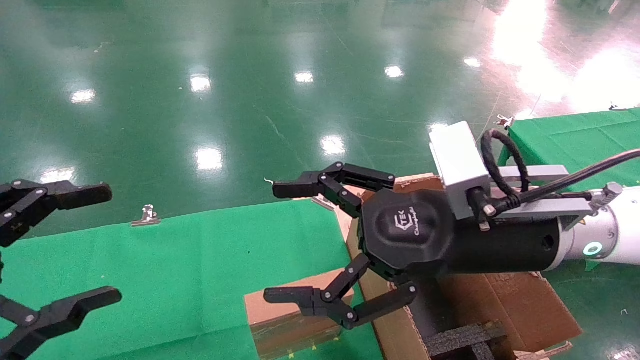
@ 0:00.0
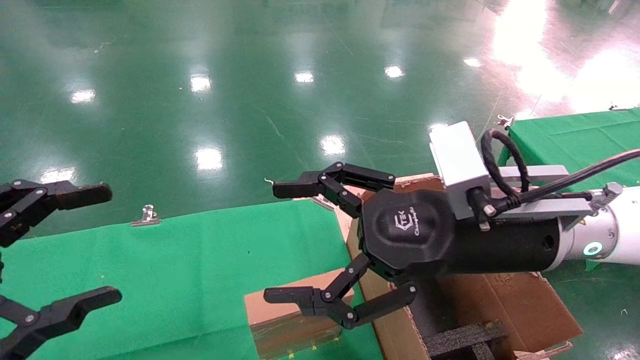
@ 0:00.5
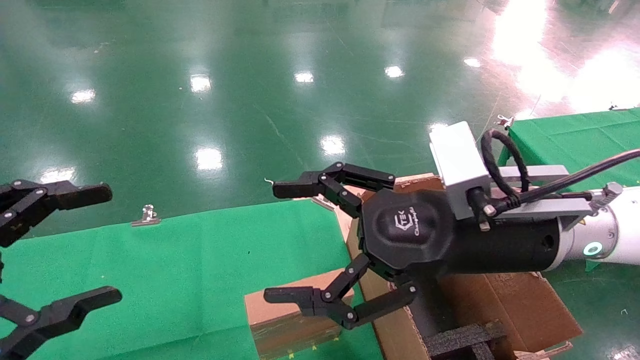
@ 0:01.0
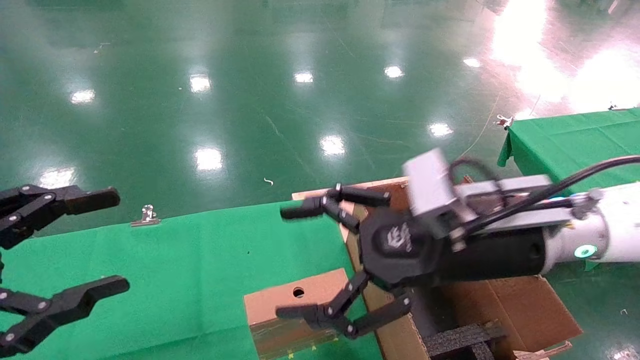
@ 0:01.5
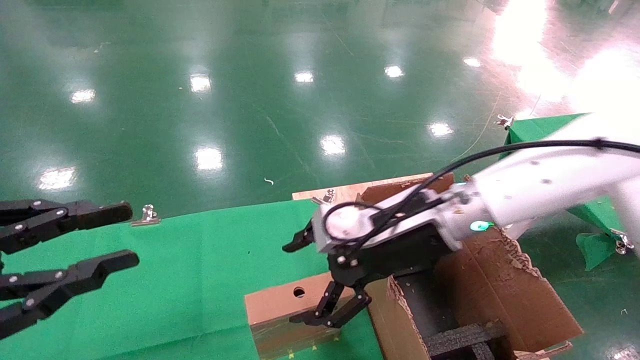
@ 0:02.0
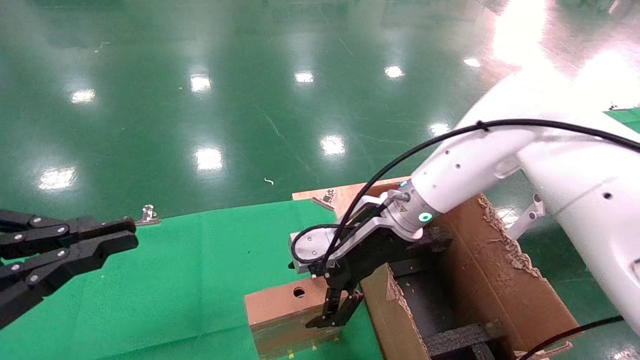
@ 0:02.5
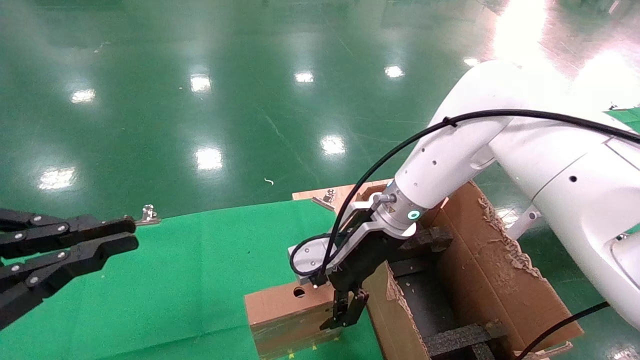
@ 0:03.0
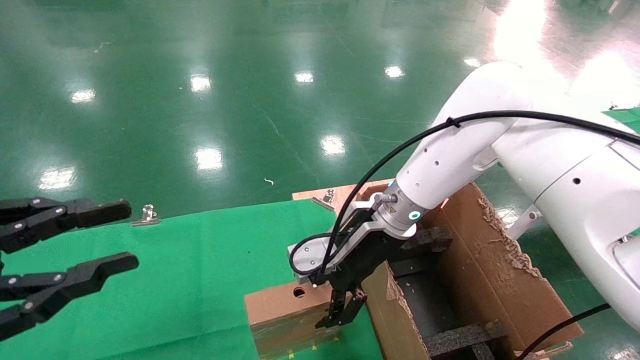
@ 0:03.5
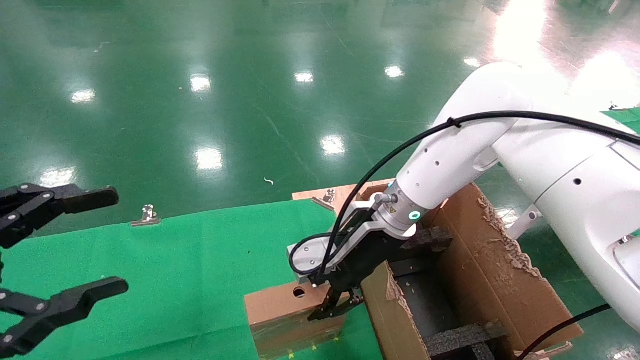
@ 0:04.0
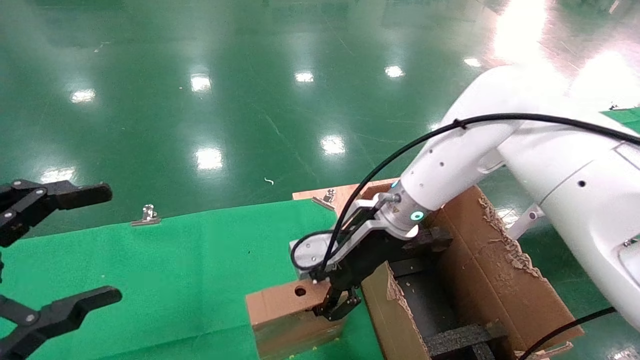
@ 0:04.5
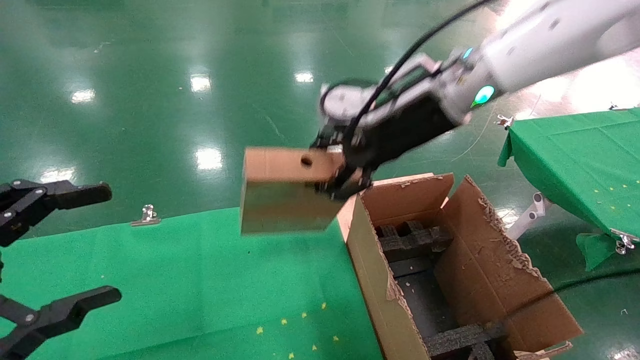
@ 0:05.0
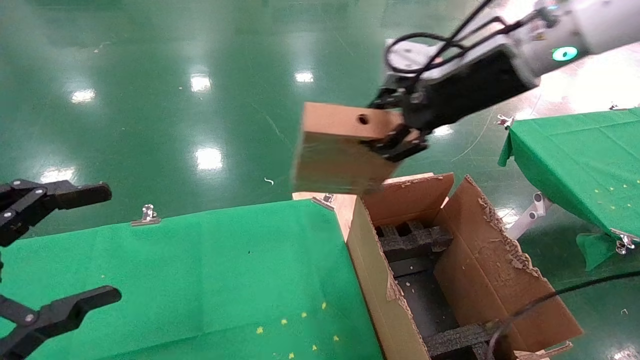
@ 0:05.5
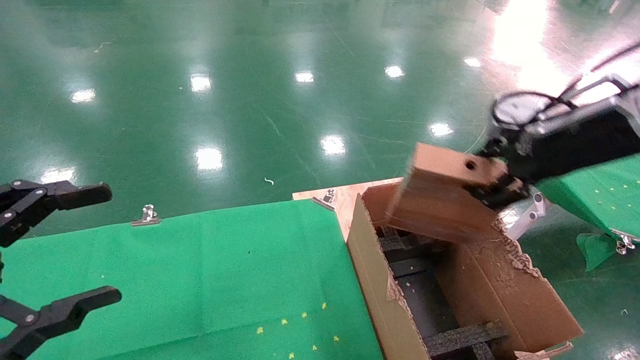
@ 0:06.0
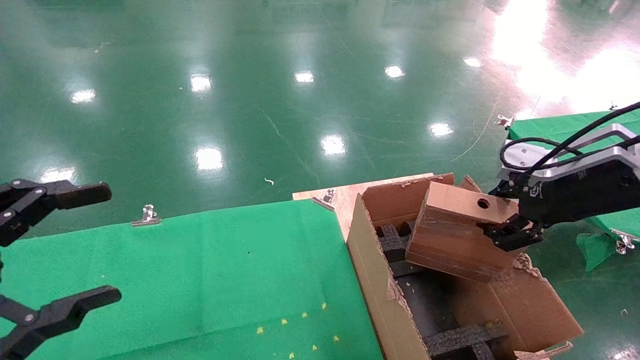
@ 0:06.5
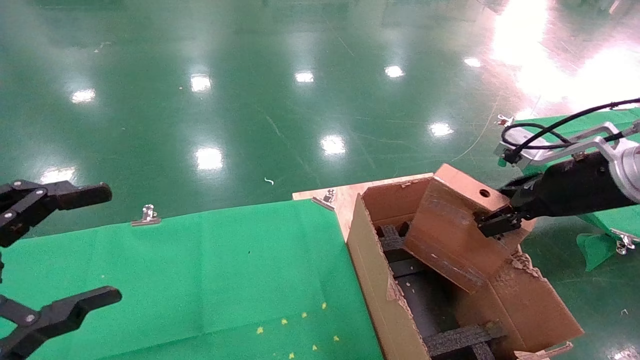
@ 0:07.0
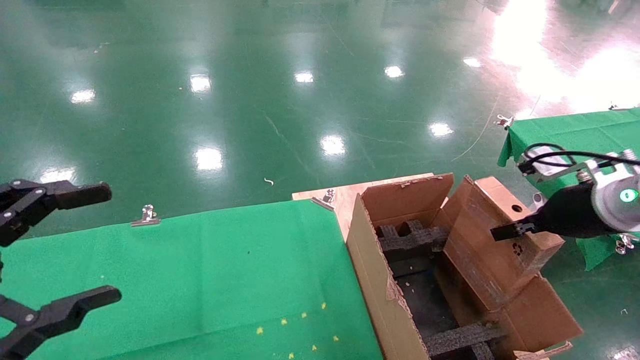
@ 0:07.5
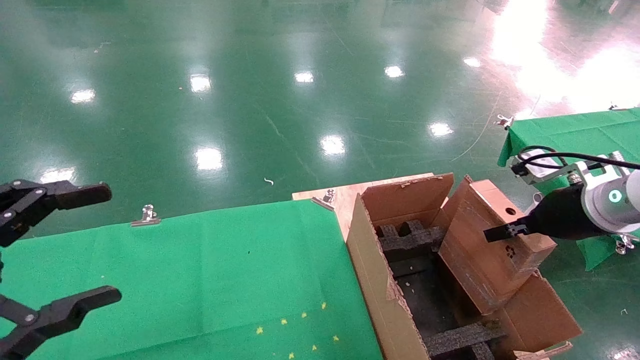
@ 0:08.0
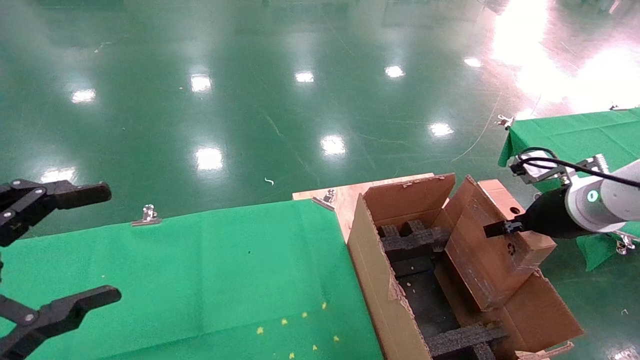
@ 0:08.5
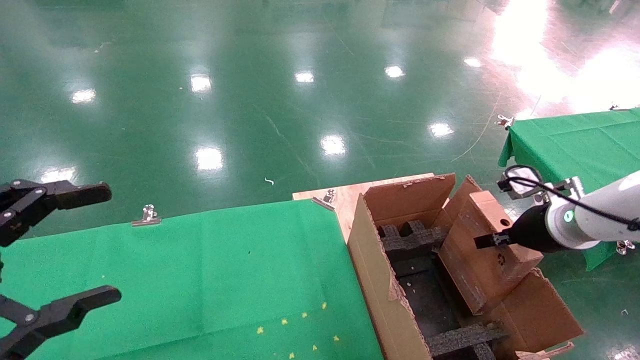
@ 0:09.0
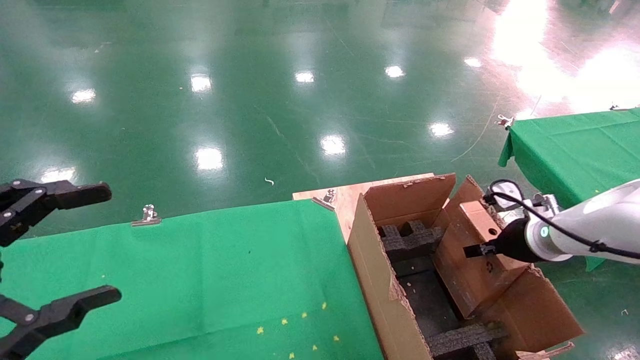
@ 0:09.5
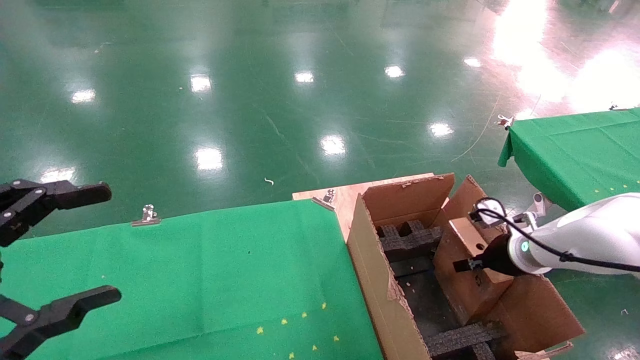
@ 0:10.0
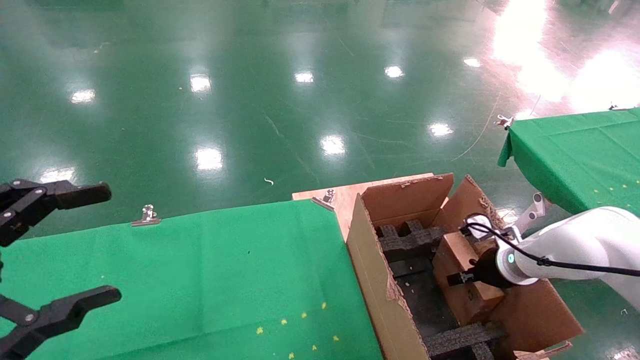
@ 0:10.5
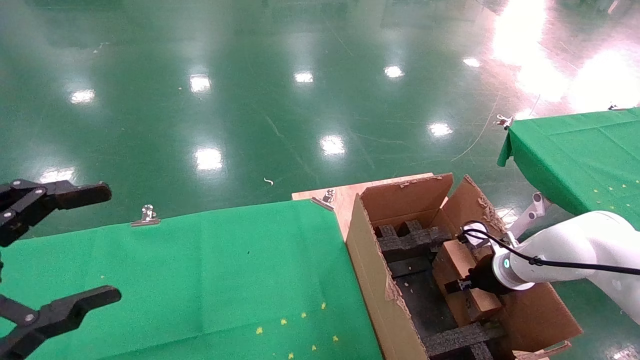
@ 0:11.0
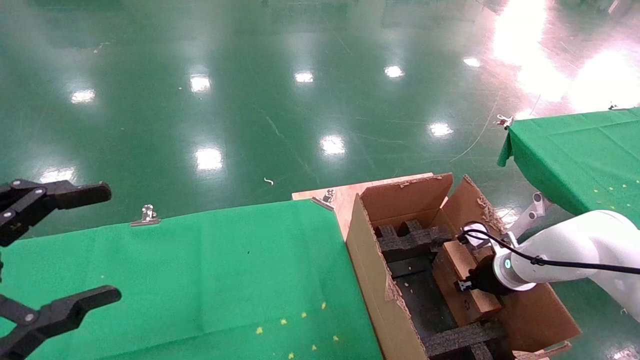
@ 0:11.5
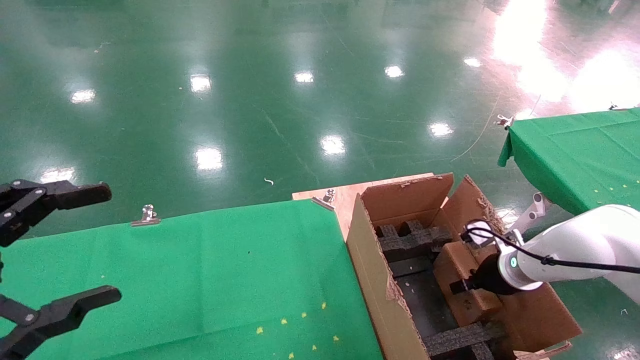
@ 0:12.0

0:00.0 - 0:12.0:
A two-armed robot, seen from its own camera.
Task of the whole recording: using a robotic arm to pick up a cardboard box and palace it the carton.
Step, 0:02.0 - 0:04.0: Pick up the mouse and the power cord paper box.
0:00.0 - 0:02.0: The left gripper closes its fingers, while the right gripper heads forward, covering roughly 10 cm.
0:02.0 - 0:04.0: The right gripper moves forward, some 5 cm, and closes up; the left gripper closes and opens again.
0:04.0 - 0:06.0: The right gripper heads to the right, upward and backward, covering some 30 cm, and closes up.
0:06.0 - 0:08.0: The right gripper travels downward by approximately 10 cm.
0:08.0 - 0:10.0: The right gripper goes approximately 15 cm downward and forward.
0:10.0 - 0:12.0: The right gripper opens up.

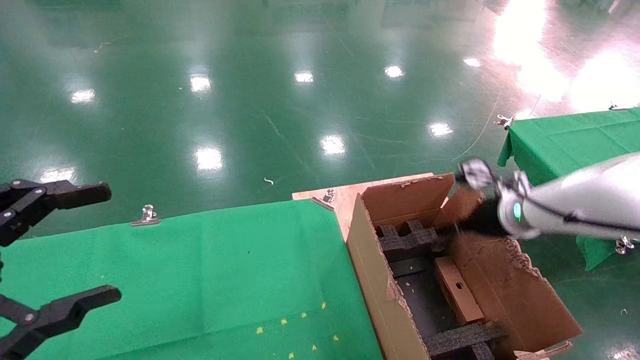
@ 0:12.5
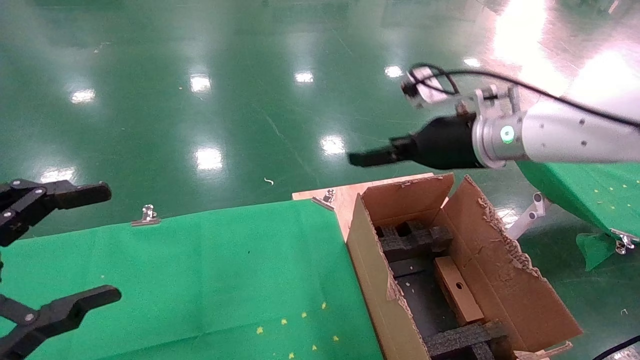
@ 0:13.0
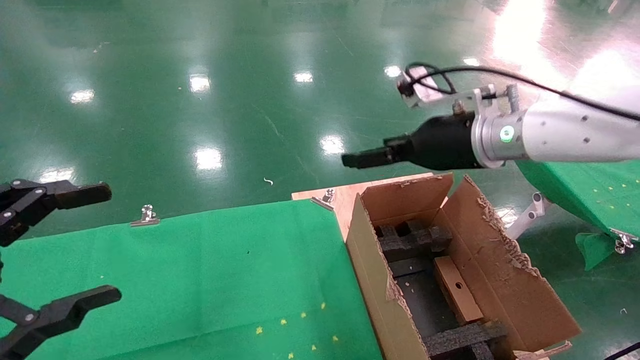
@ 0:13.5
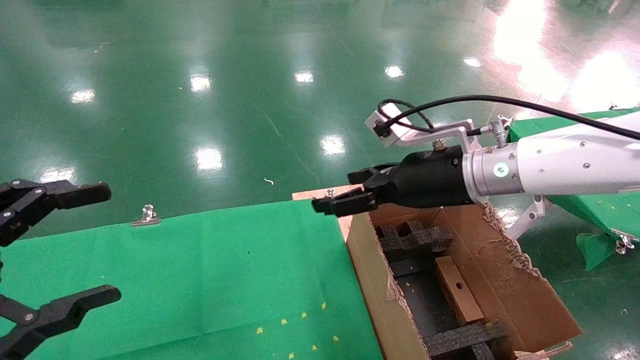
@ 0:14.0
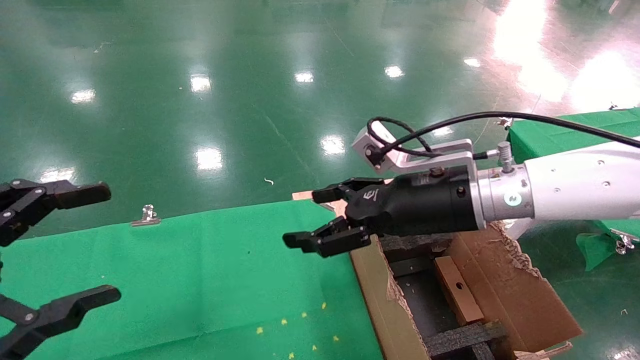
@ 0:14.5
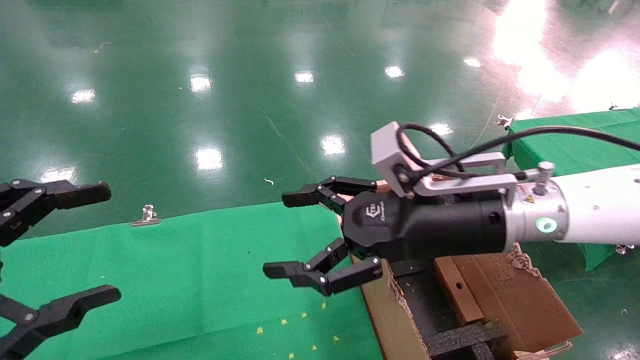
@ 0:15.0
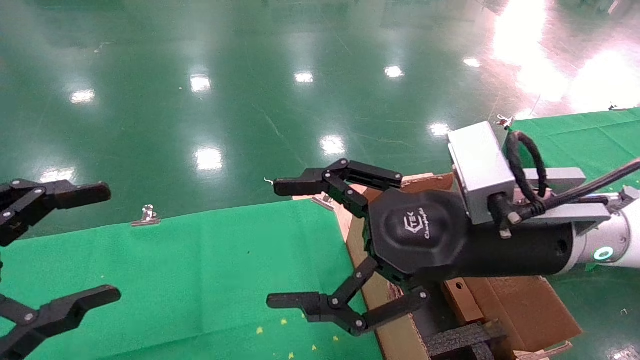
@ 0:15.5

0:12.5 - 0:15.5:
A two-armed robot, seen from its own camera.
Task of the whole recording: using a robotic arm to pick up a cardboard box and palace it the carton.
0:12.5 - 0:14.0: The right gripper goes roughly 15 cm to the left, upward and backward.
0:14.0 - 0:15.5: The right gripper shifts roughly 10 cm backward.

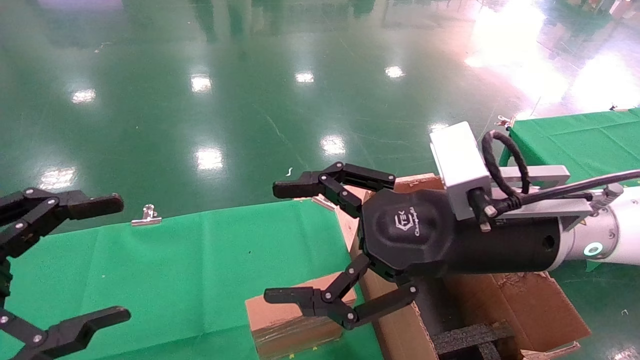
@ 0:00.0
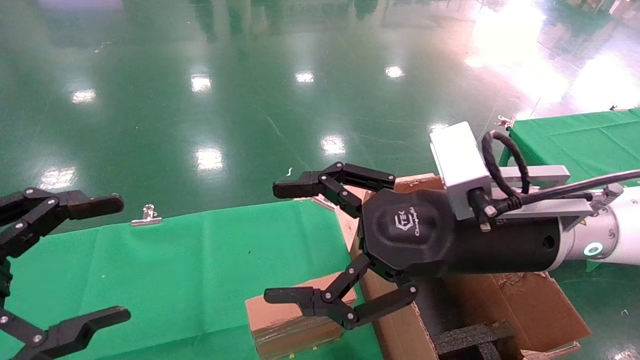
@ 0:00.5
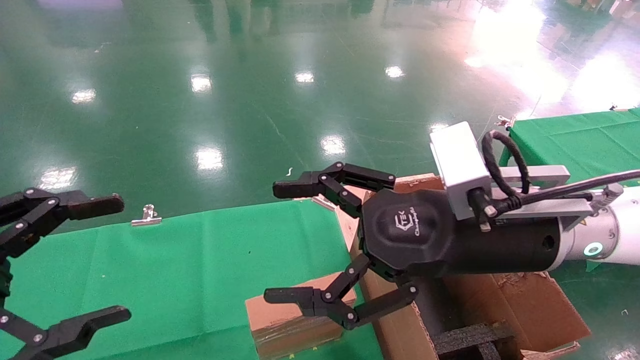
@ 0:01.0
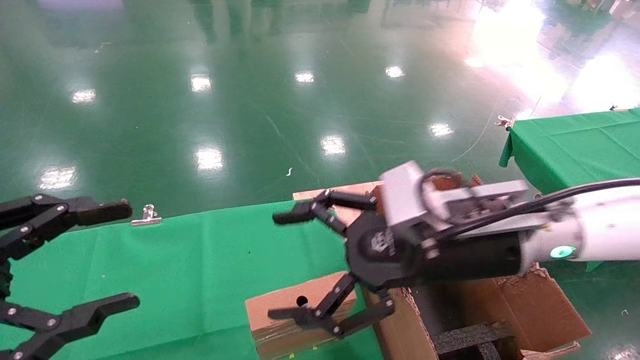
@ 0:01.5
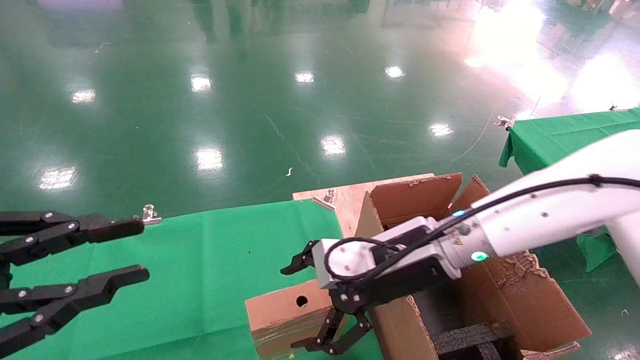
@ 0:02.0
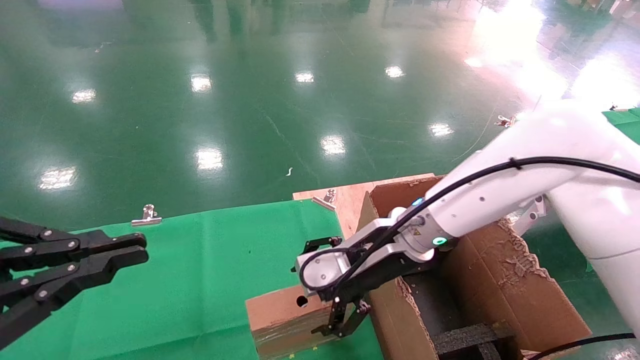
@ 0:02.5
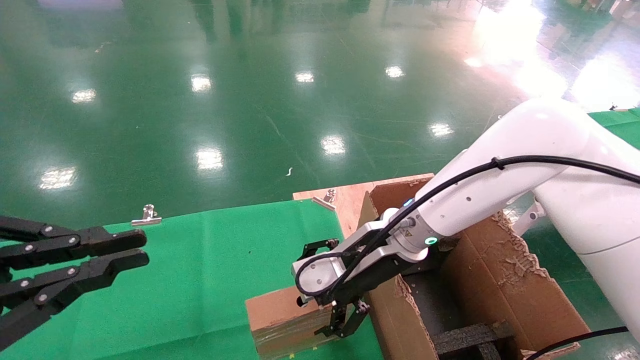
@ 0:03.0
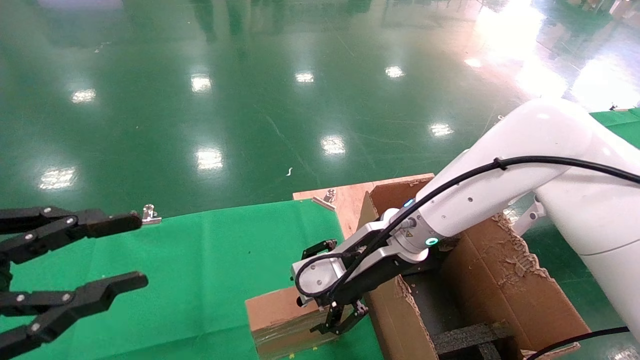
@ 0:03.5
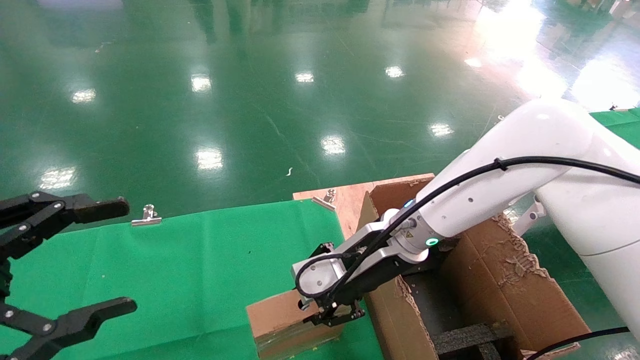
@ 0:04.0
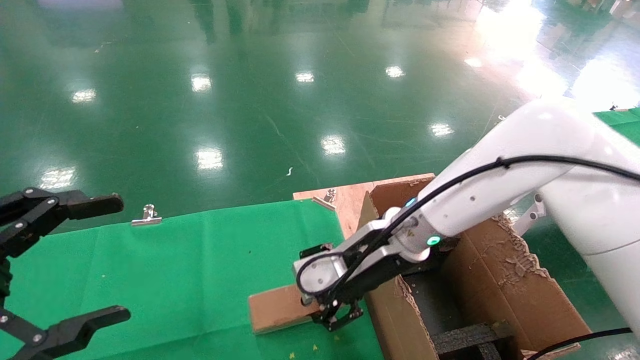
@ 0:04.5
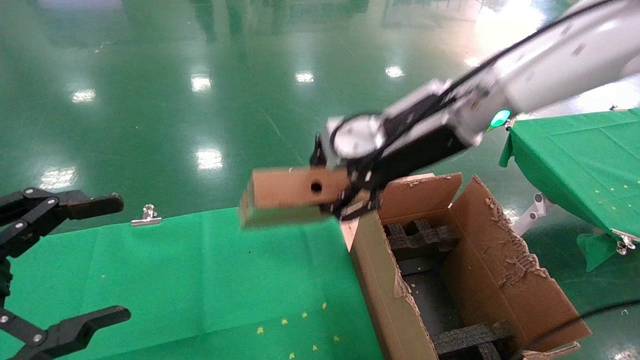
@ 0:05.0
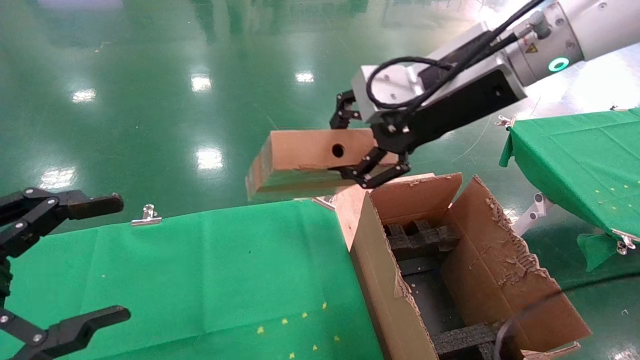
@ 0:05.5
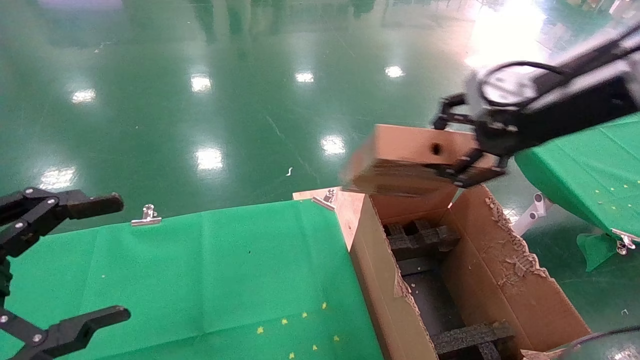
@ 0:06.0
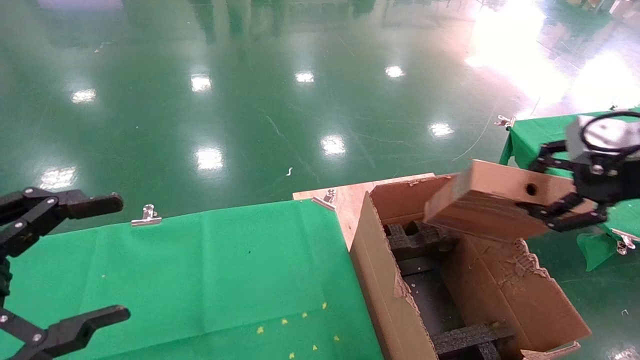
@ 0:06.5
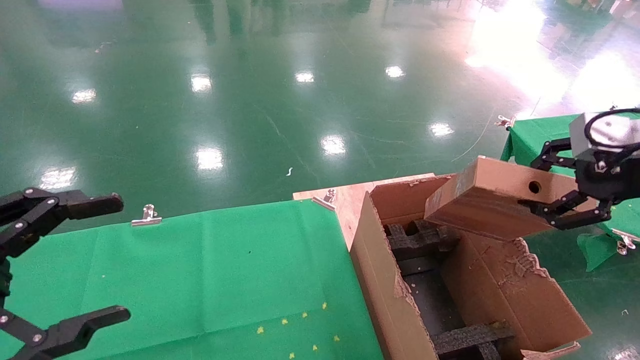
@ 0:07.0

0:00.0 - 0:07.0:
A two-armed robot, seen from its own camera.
Task of the whole recording: using a robotic arm to pick up a cardboard box and palace it the carton.
Step, 0:01.5 - 0:04.0: Pick up the mouse and the power cord paper box.
0:00.0 - 0:02.0: The left gripper closes up. Meanwhile the right gripper heads forward and downward, covering about 10 cm.
0:03.5 - 0:05.0: The right gripper heads upward, covering about 15 cm, and closes up. Meanwhile the left gripper opens up.
0:05.0 - 0:07.0: The right gripper is displaced to the right and backward by roughly 30 cm.
